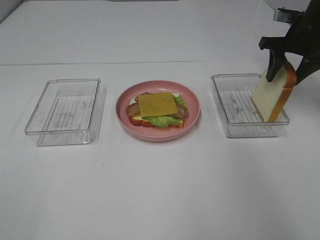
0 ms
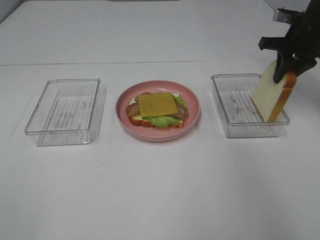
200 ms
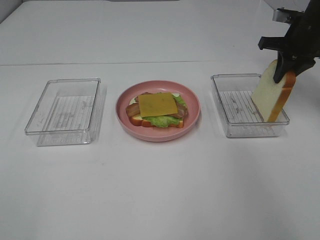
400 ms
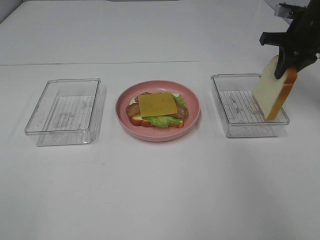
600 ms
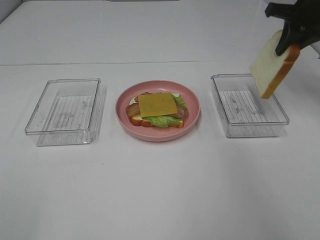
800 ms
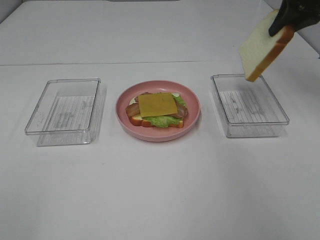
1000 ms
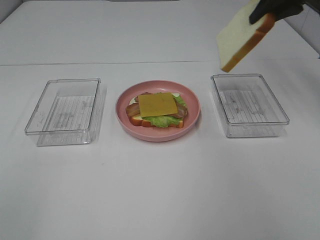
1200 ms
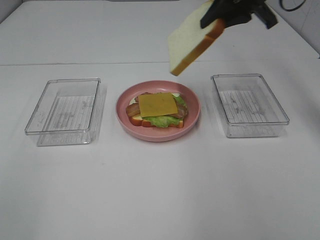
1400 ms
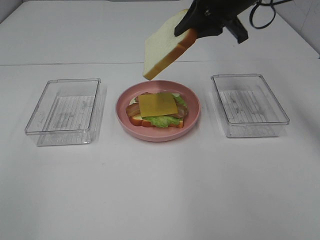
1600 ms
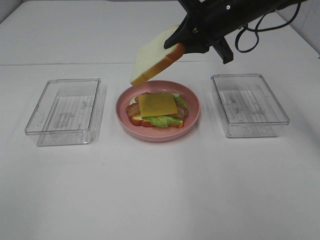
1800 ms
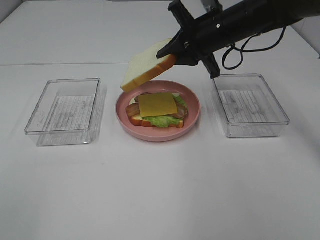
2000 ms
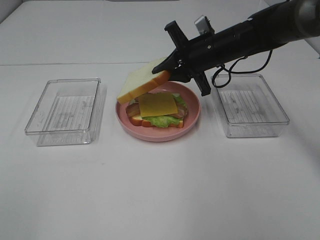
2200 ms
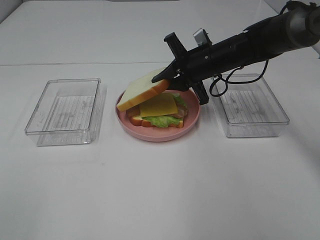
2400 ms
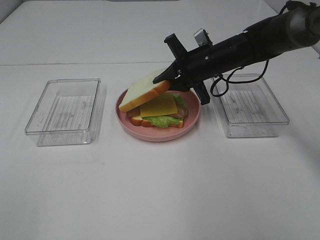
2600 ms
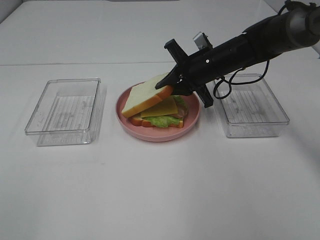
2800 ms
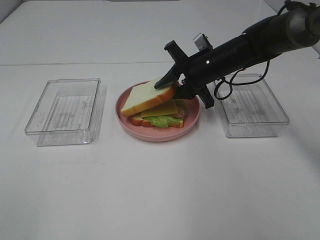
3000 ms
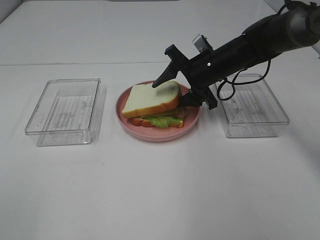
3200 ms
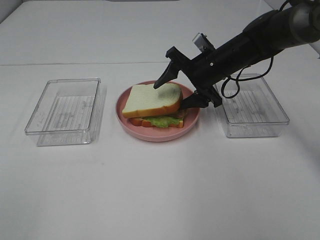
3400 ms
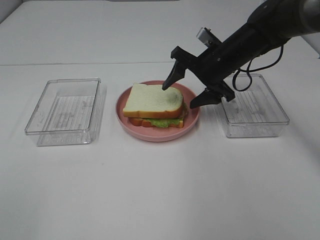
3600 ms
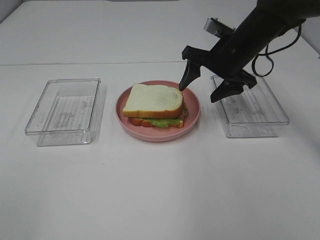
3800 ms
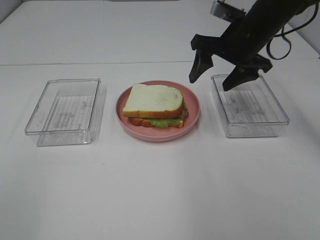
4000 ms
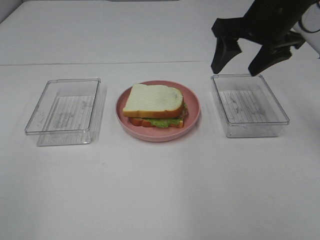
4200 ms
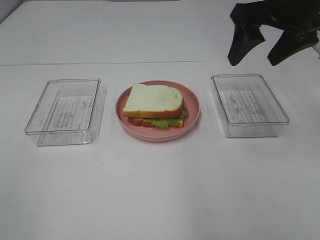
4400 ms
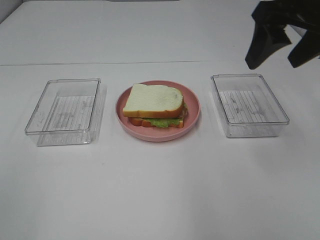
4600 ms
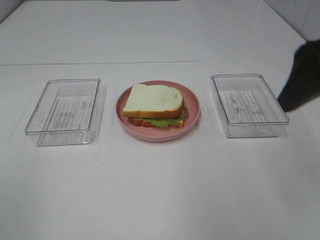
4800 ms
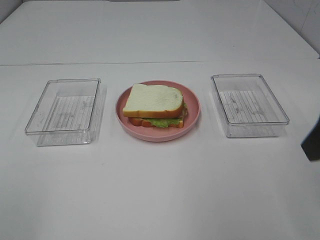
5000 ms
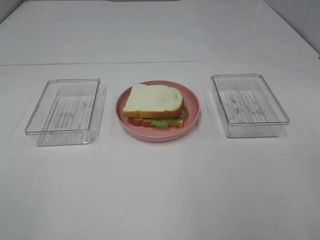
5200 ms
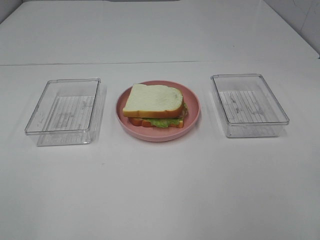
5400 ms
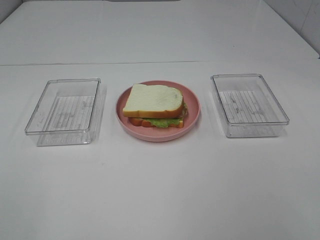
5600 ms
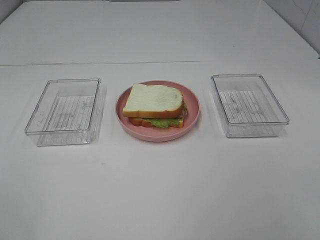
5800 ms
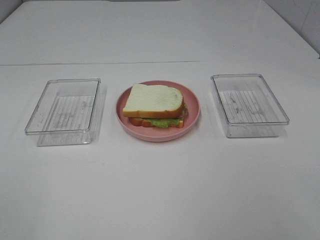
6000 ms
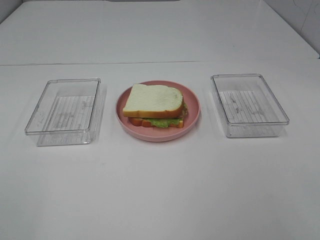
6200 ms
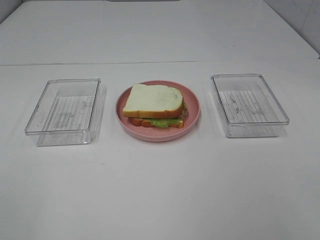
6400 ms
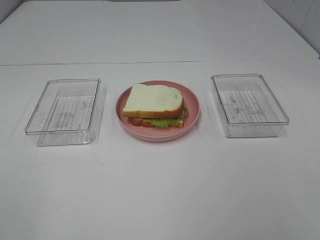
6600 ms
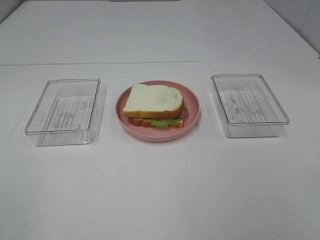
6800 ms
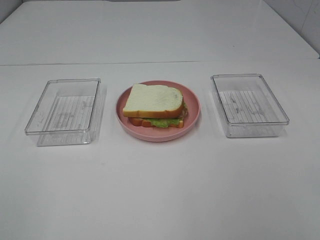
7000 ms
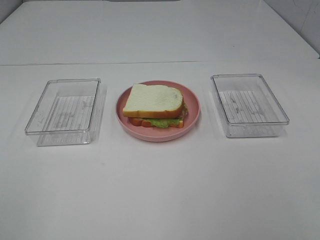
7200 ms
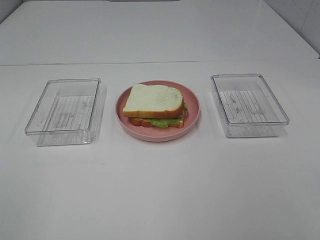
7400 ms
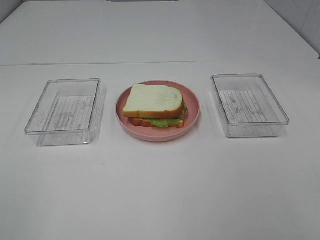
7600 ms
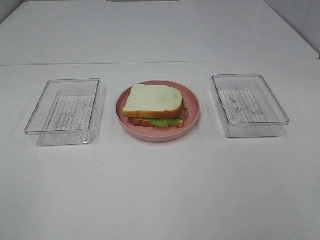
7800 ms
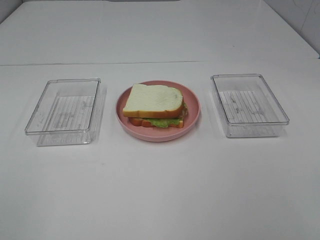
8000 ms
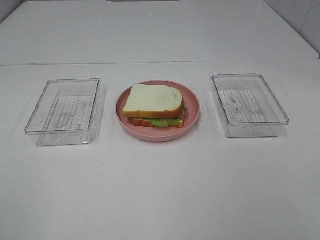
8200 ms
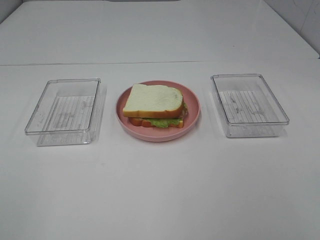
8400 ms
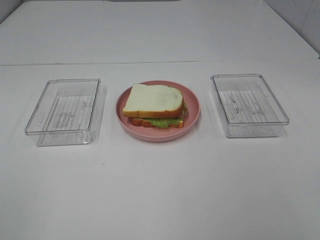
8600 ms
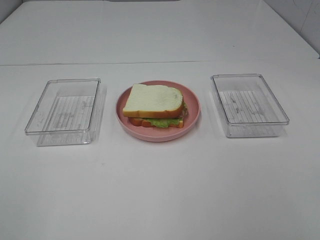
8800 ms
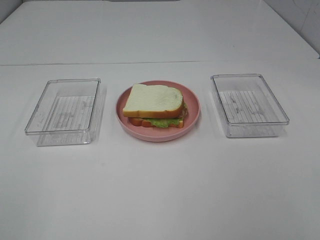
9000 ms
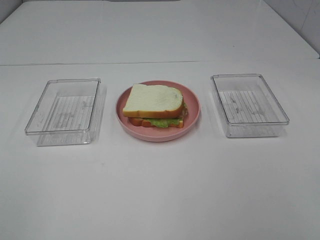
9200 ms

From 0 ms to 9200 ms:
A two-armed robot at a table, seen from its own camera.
Task of the whole recording: Make sandwiches.
Step, from 400 ms to 3600 ms: Right hand:place the bread slice on the cheese slice.
From 0 ms to 1600 ms: The right gripper heads to the left and upward, covering about 15 cm, and closes.
From 1600 ms to 3000 ms: The right gripper shifts approximately 15 cm downward.
From 3000 ms to 4600 ms: The right gripper moves upward, backward and to the right, roughly 25 cm, and opens its fingers.
From 4600 ms to 6200 ms: The right gripper travels backward by about 25 cm.
From 7600 ms to 9200 ms: Both grippers stay about where they are.

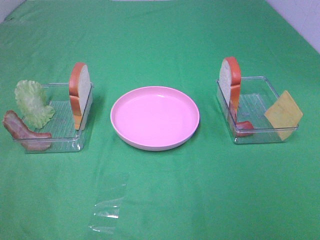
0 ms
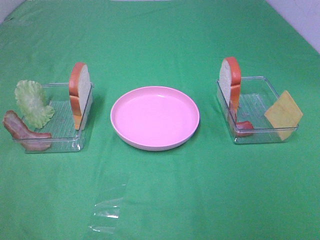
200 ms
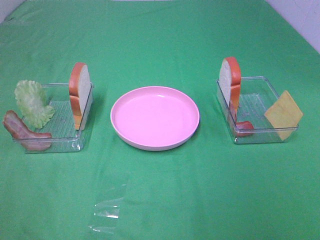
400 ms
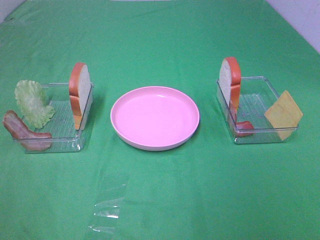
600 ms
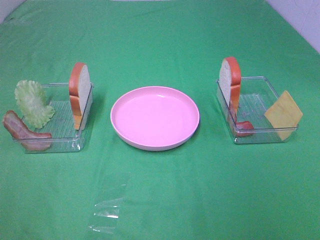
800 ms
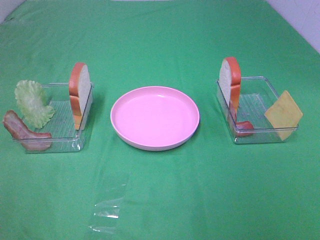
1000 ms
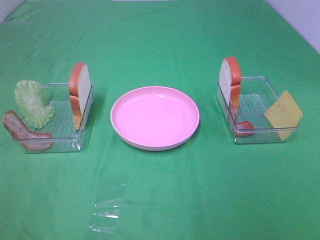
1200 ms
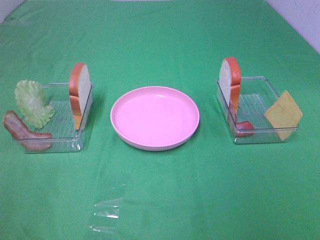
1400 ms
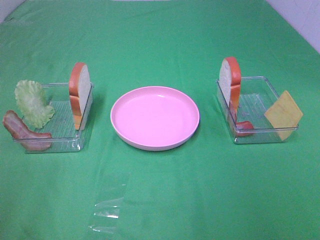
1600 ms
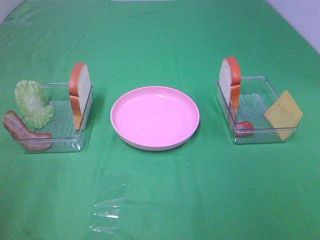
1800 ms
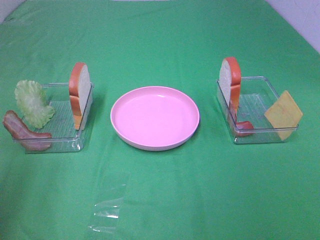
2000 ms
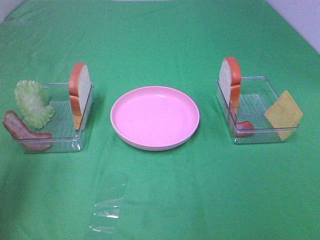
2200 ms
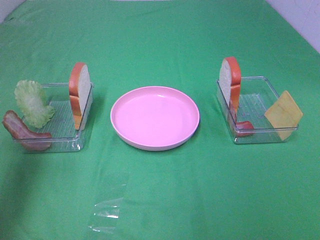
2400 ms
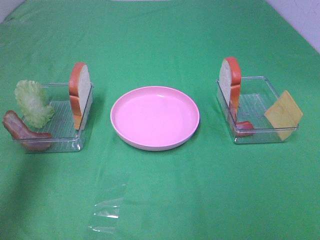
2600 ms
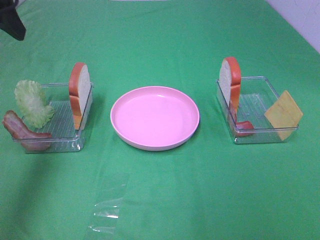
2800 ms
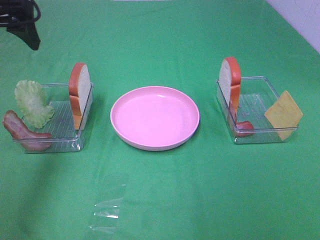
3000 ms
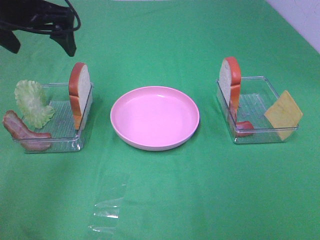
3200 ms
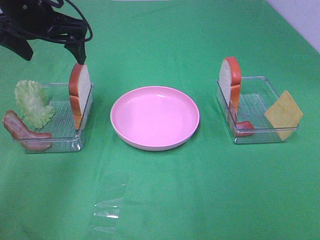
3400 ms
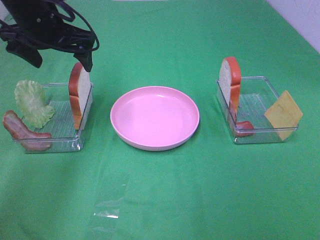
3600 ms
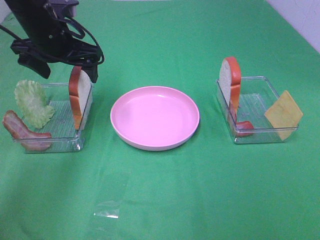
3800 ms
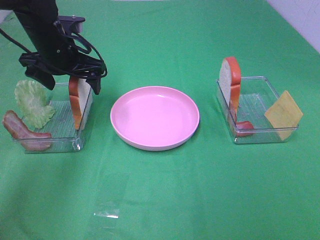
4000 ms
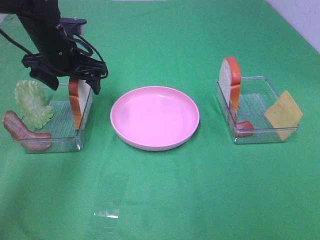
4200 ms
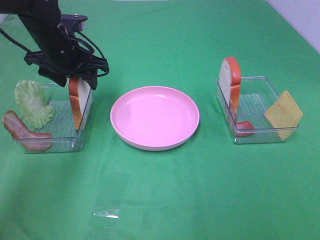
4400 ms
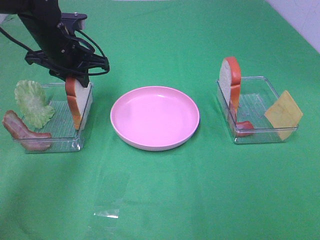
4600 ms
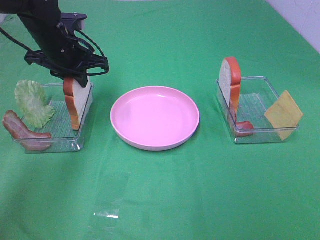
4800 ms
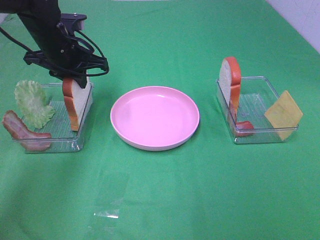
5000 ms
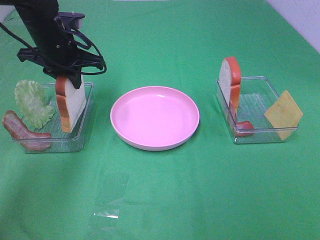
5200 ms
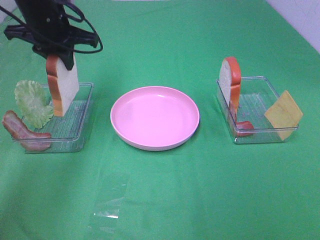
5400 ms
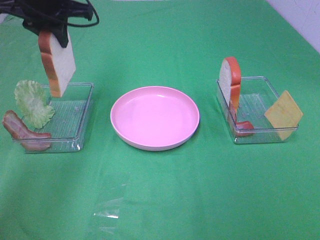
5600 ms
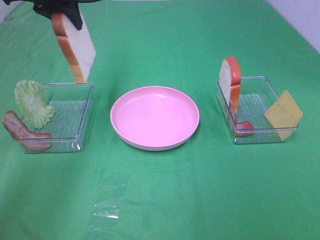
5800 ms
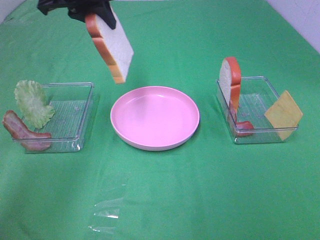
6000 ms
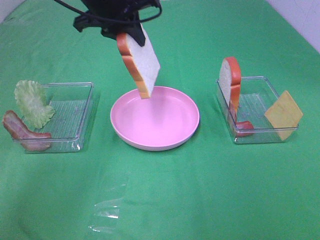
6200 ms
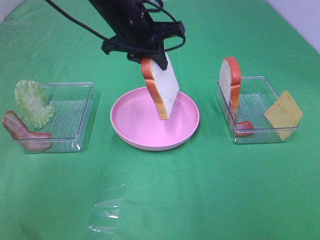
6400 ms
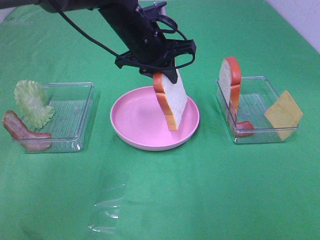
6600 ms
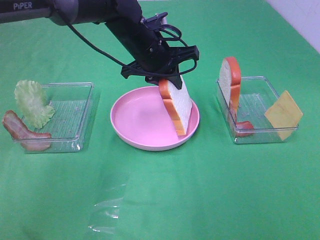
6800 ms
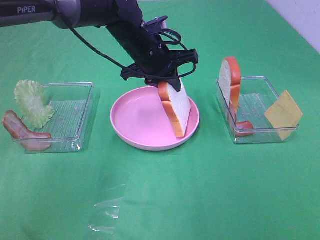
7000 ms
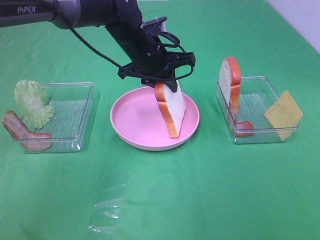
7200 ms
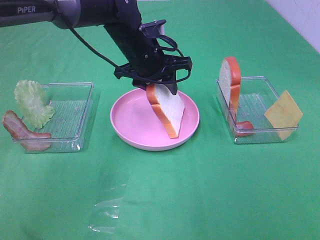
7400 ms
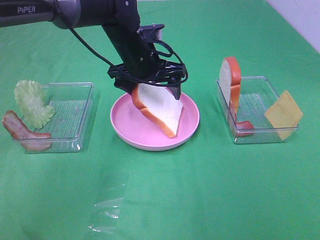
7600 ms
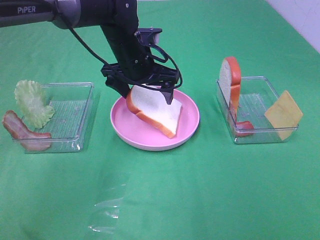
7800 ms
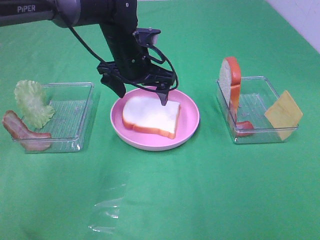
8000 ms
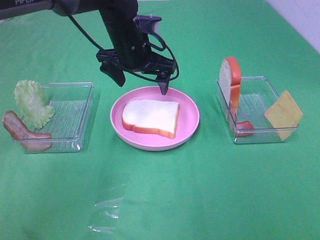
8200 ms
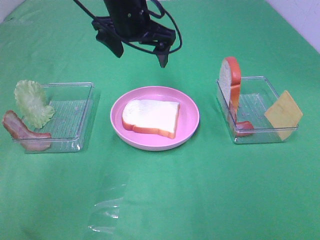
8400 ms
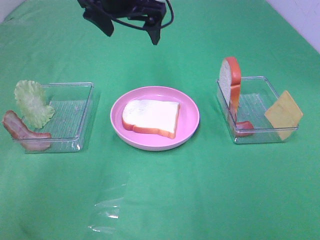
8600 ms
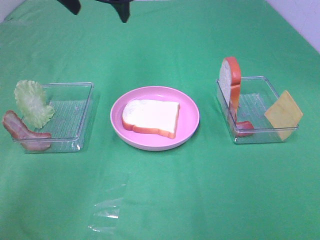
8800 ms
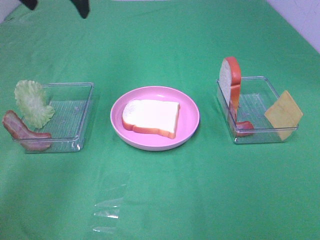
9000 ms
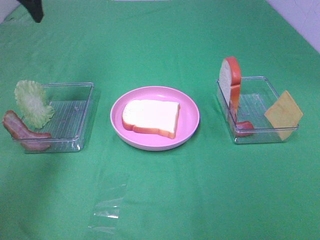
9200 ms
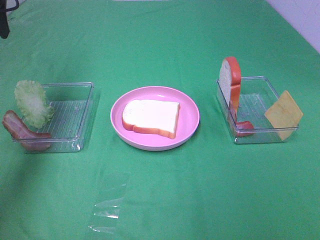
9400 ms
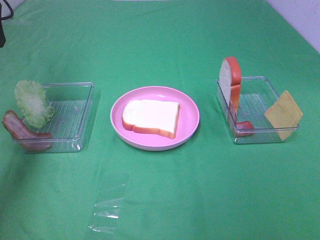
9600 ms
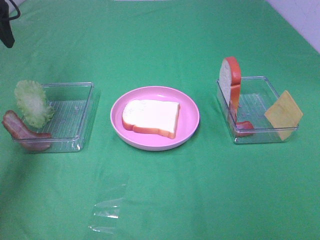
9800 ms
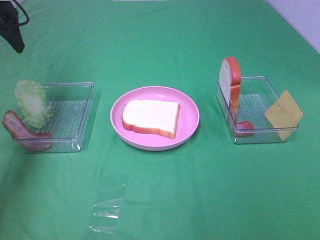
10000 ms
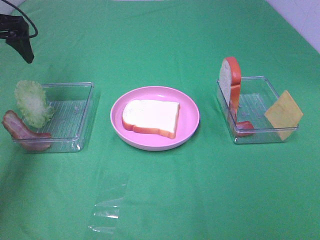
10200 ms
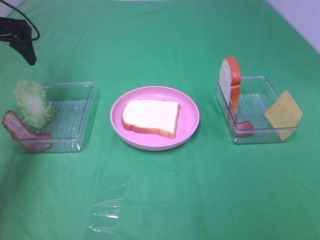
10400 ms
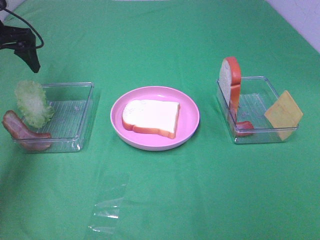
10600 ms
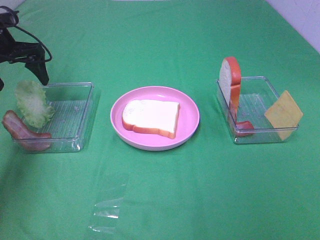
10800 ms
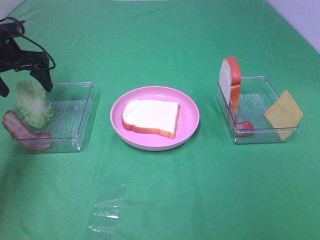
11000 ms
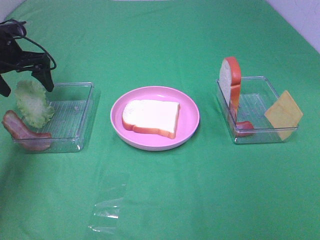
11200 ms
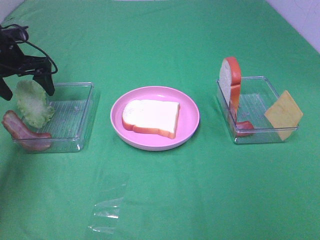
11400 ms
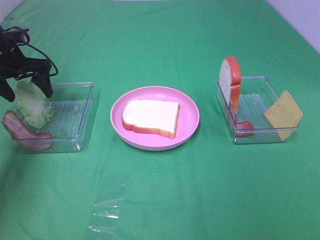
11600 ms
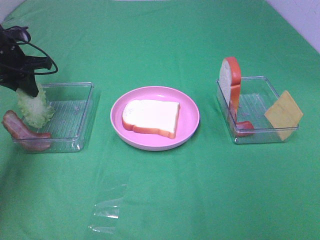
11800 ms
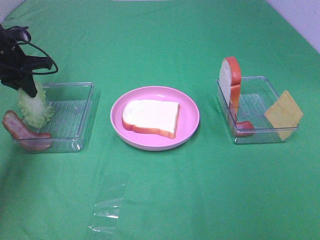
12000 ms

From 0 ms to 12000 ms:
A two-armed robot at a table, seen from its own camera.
Task of the whole recording: Make sandwiches.
Step, from 0 ms to 4600 ms: Left hand:grab the bread slice.
Step, from 4800 ms to 8000 ms: Left hand:place the bread slice on the plate.
From 1600 ms to 3000 ms: The left gripper heads forward, covering some 30 cm.
From 3000 ms to 4400 ms: The left gripper moves downward, forward and to the right, some 15 cm, and closes.
From 4400 ms to 6000 ms: The left gripper heads upward, covering approximately 10 cm, and closes its fingers.
From 6000 ms to 7600 ms: The left gripper shifts roughly 15 cm downward and to the right, and opens its fingers.
From 7600 ms to 9000 ms: The left gripper travels upward and to the left by roughly 25 cm.
From 9000 ms to 10400 ms: The left gripper moves to the left and downward, about 15 cm.
From 10400 ms to 12000 ms: The left gripper heads downward, covering about 10 cm, and closes up.

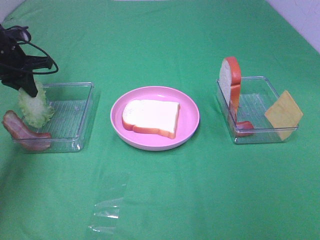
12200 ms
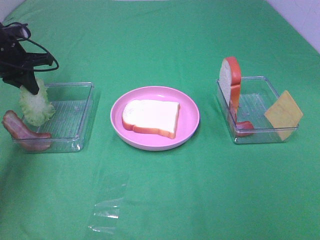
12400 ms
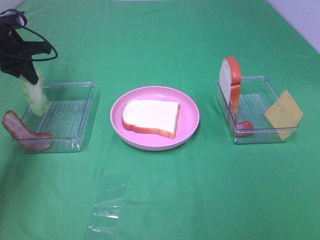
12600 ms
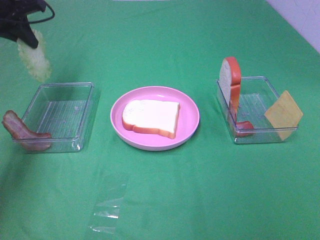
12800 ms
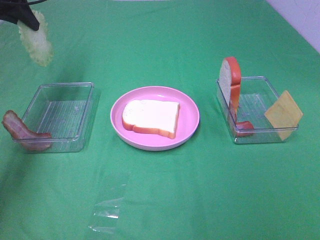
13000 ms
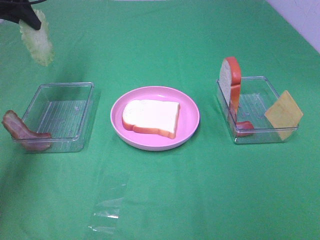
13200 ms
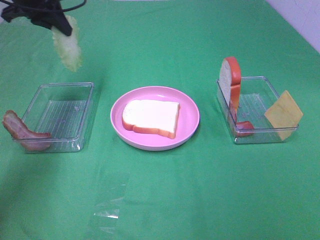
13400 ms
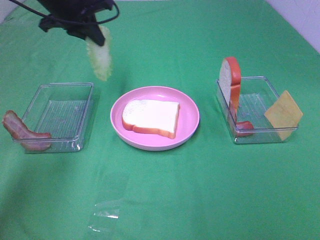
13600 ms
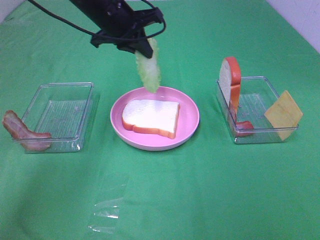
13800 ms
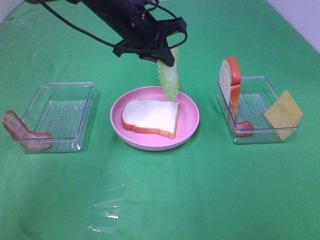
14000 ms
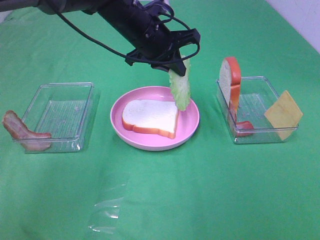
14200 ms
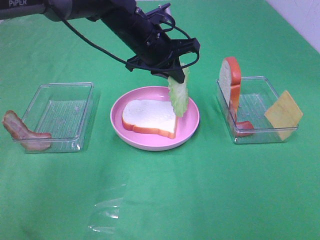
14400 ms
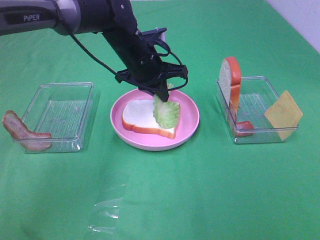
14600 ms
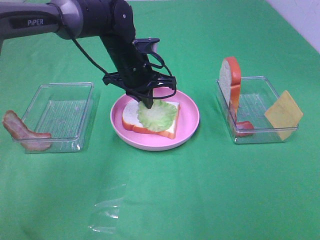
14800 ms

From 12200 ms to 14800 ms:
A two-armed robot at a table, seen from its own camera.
Task of the whole recording: Make sandwiches.
From 12200 ms to 13400 ms: The left gripper shifts about 15 cm upward and to the right.
From 13400 ms to 14800 ms: The left gripper goes some 25 cm to the right and downward.
